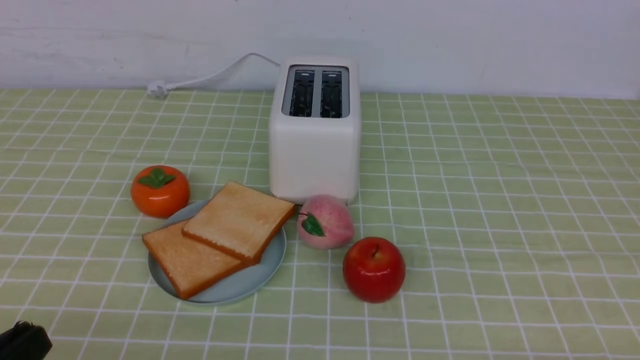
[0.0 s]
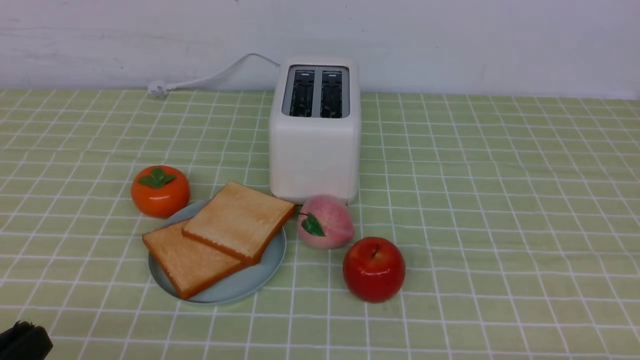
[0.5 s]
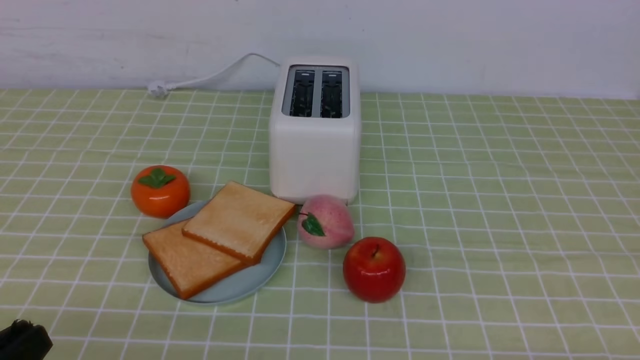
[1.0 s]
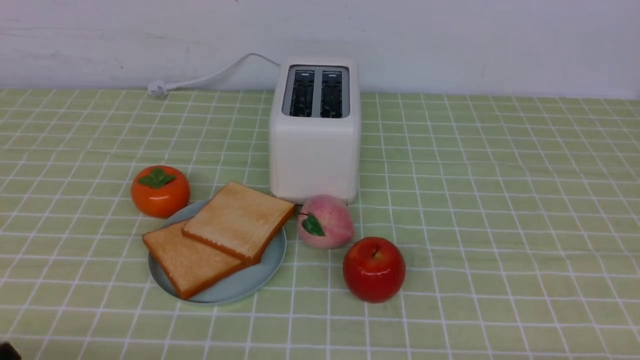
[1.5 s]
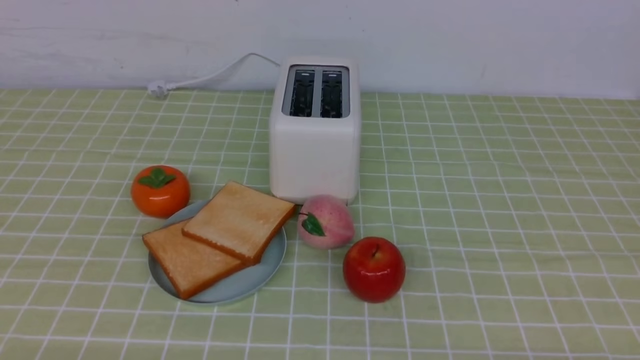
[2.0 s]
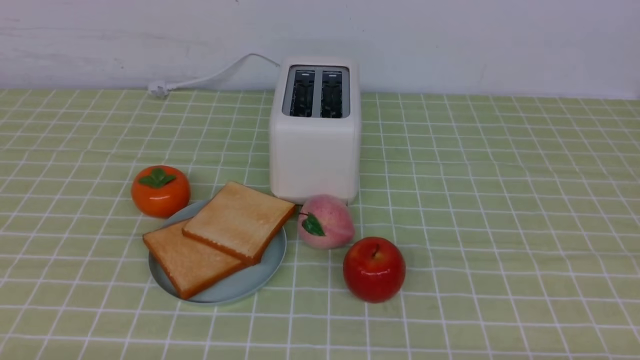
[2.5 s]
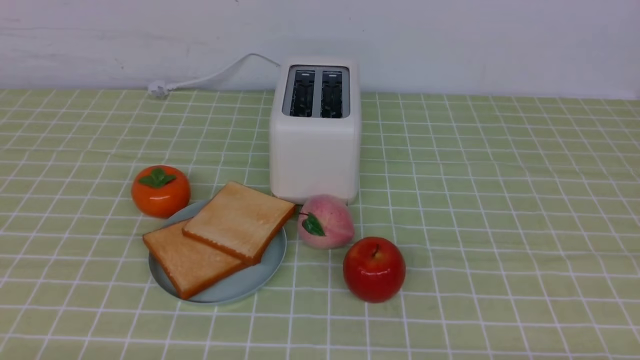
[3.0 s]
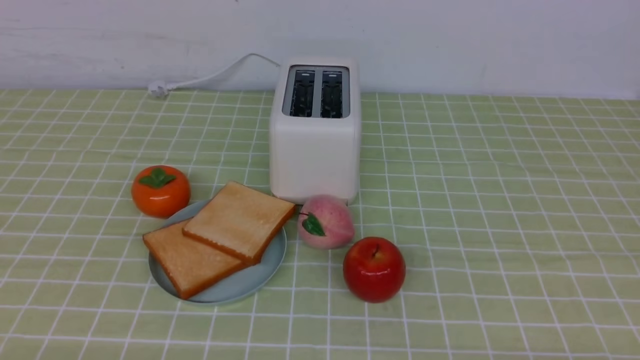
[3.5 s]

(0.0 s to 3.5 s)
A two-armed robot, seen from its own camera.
Task of the whole recording: take toasted bread from bread machine on green coffee tablecloth place on plate.
0.0 s - 2.0 s: The left gripper is displaced downward by approximately 10 cm.
2.0 s - 3.5 s: Both grippers stay put.
